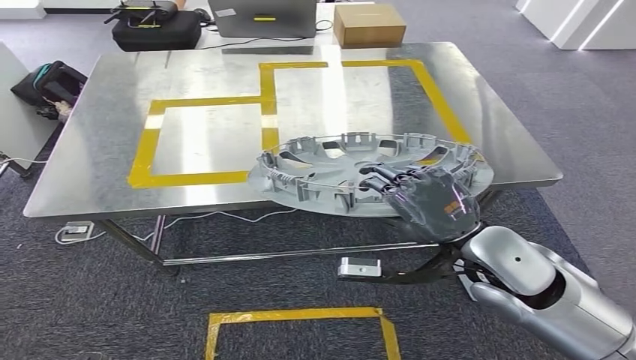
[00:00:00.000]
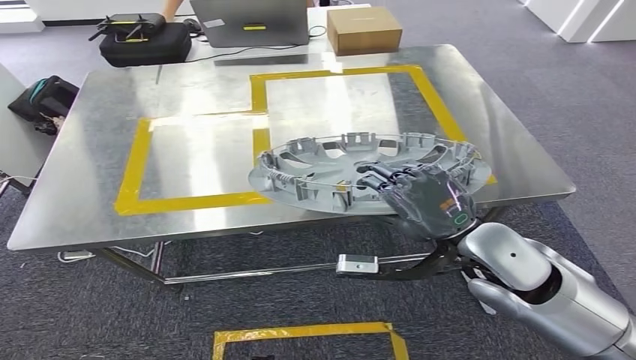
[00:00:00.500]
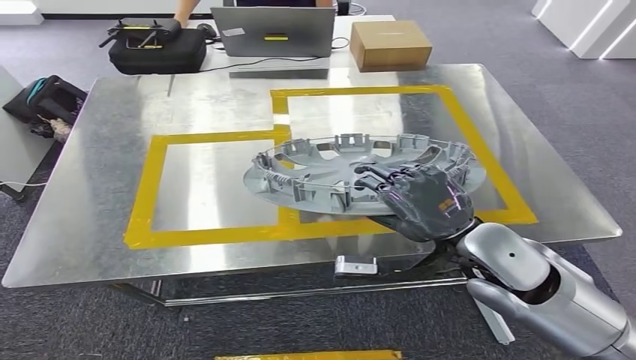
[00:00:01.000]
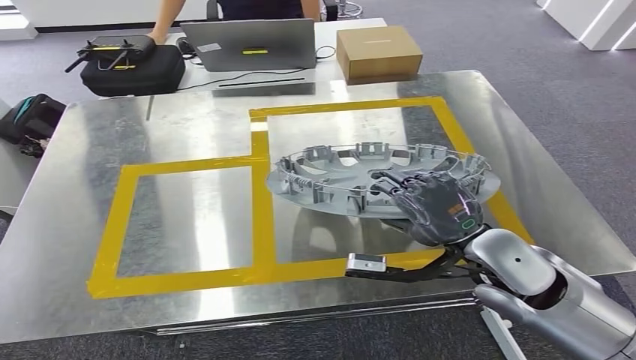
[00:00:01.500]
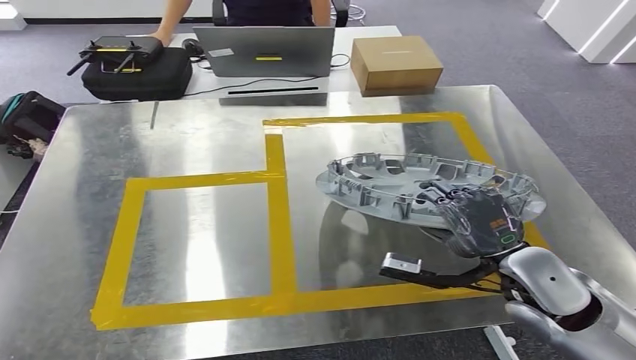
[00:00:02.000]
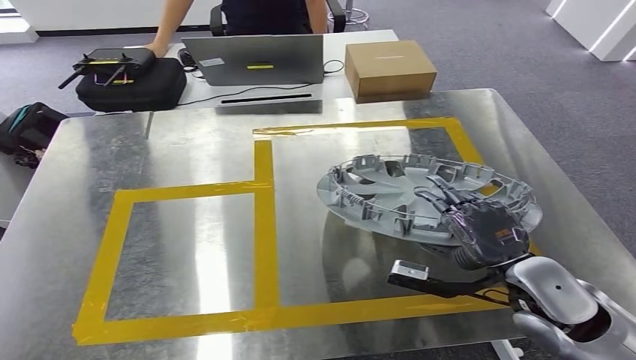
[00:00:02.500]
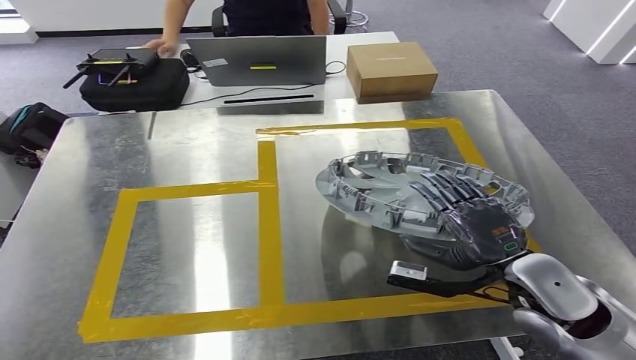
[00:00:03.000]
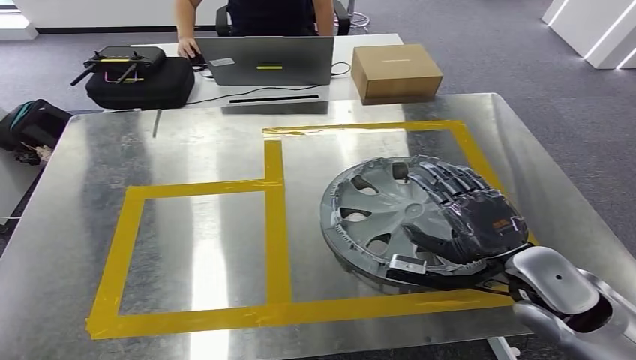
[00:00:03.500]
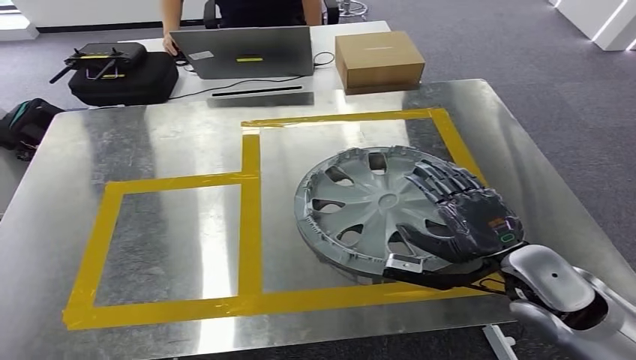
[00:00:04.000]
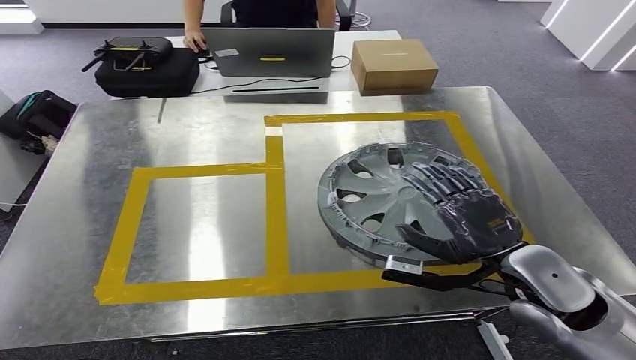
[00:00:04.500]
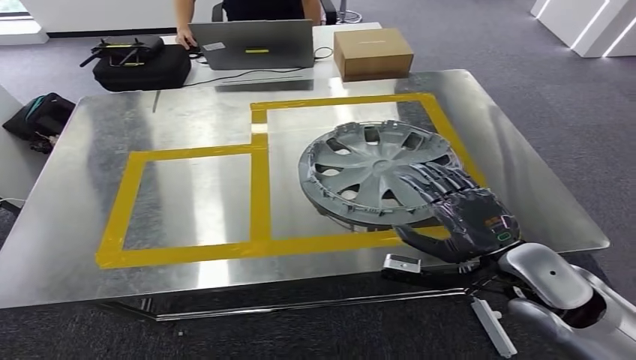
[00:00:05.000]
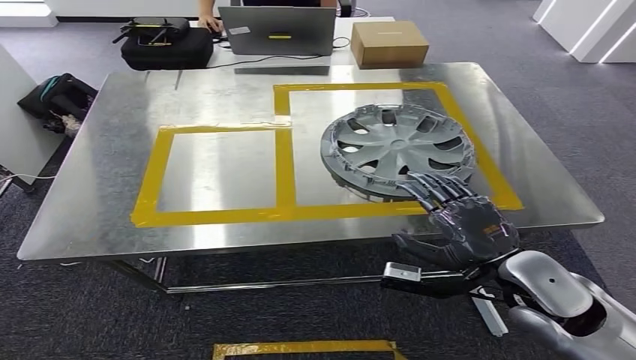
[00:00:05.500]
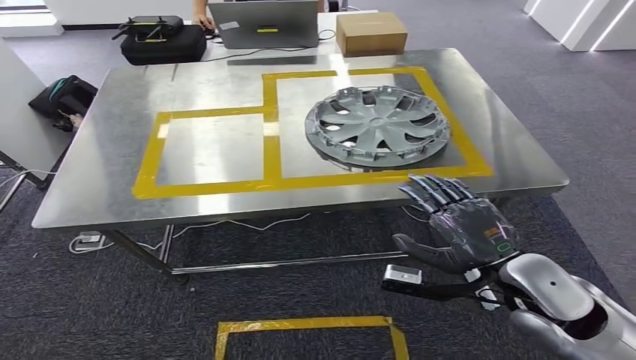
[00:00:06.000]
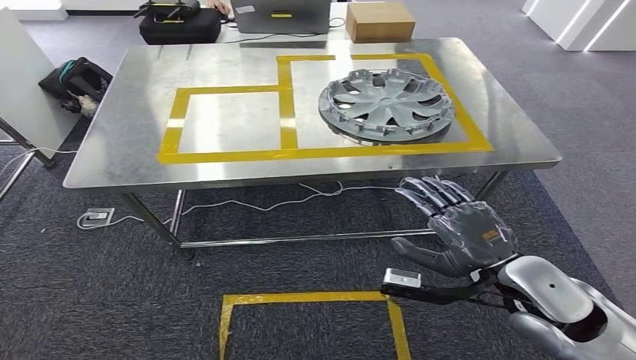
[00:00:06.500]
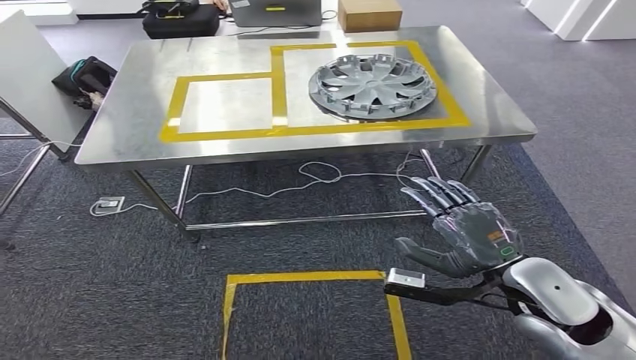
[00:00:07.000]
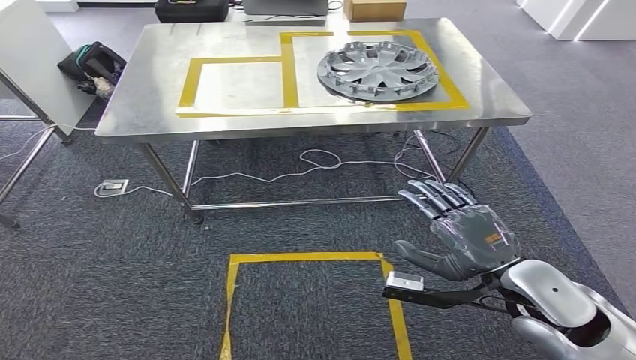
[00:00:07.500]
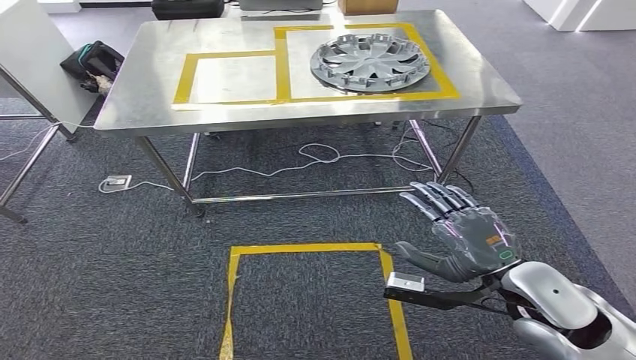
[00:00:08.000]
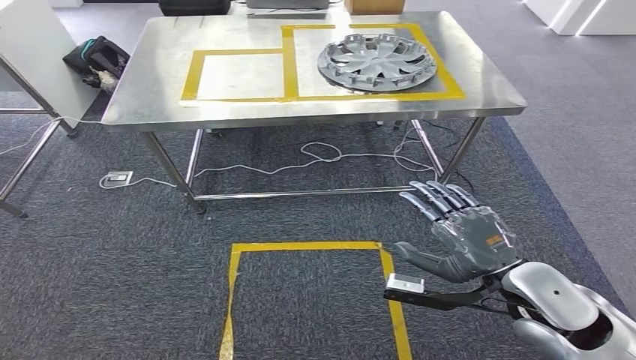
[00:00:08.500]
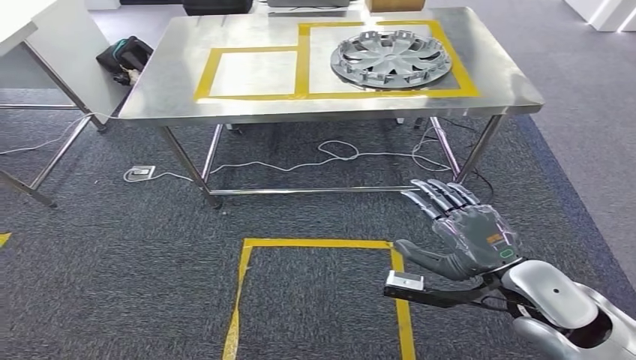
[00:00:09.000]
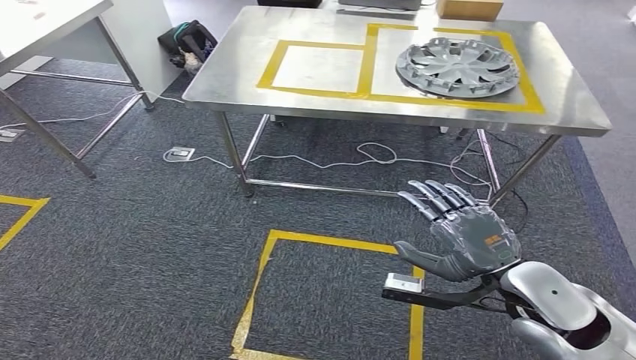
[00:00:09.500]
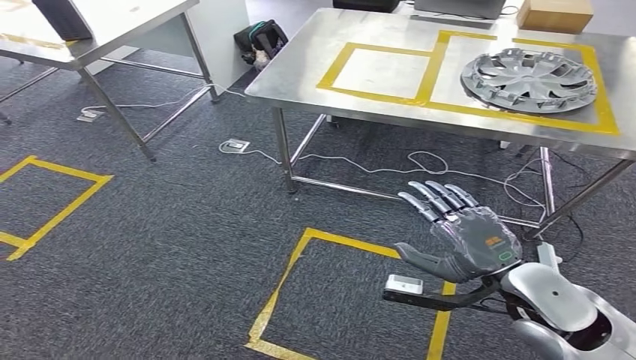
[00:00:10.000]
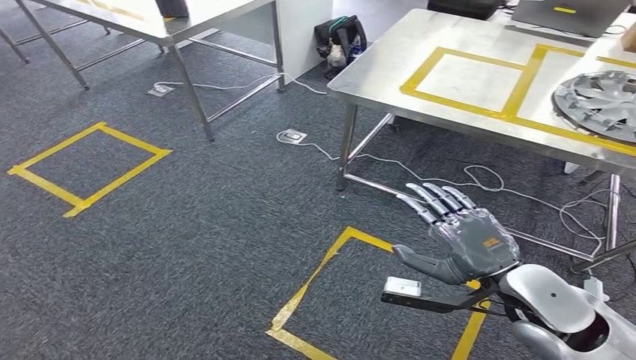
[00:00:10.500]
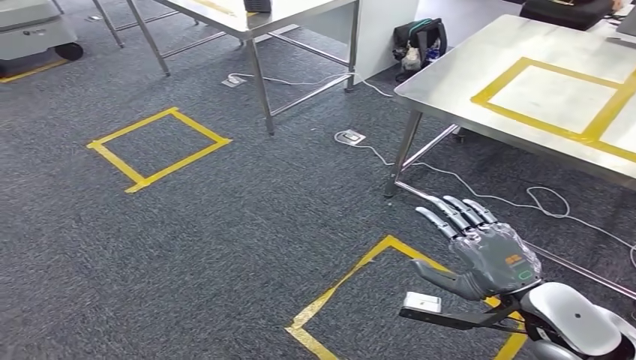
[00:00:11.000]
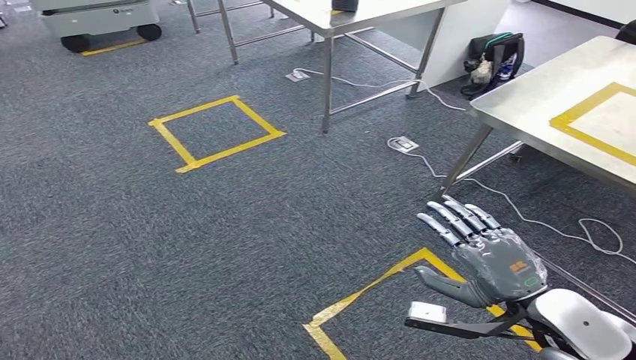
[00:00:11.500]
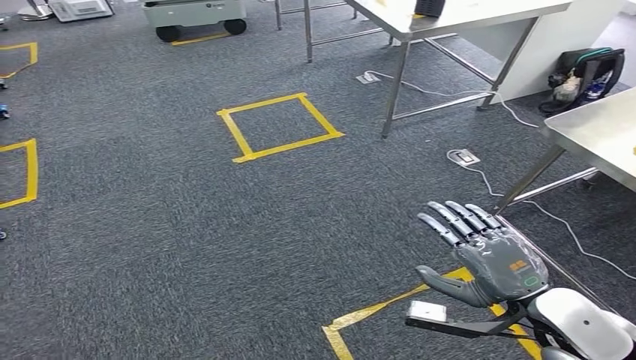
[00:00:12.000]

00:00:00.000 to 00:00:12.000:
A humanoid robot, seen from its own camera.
Step, 00:00:00.000 to 00:00:02.000: Move the small component to the workbench.
Step, 00:00:02.500 to 00:00:05.000: Insert the small component into the corresponding slot on the workbench.

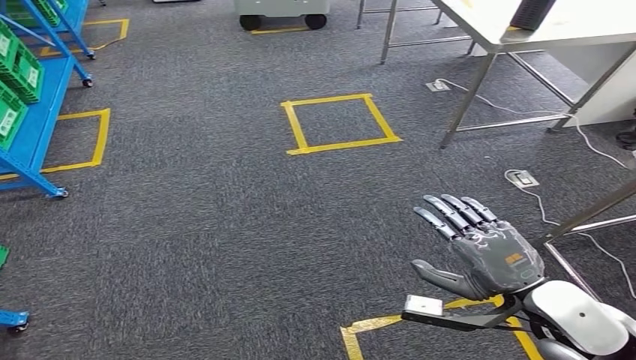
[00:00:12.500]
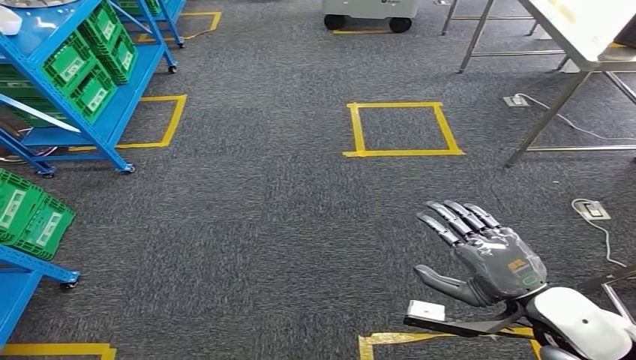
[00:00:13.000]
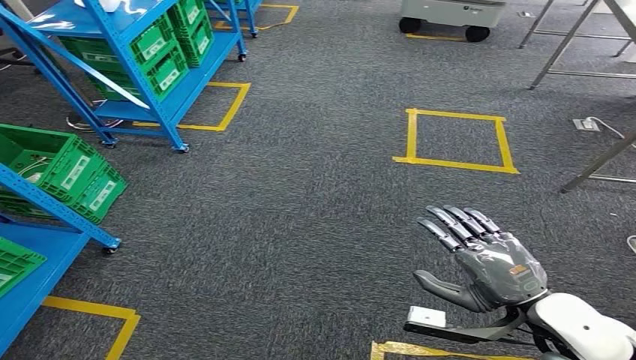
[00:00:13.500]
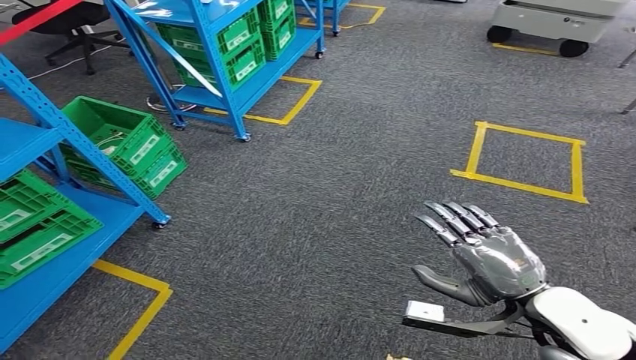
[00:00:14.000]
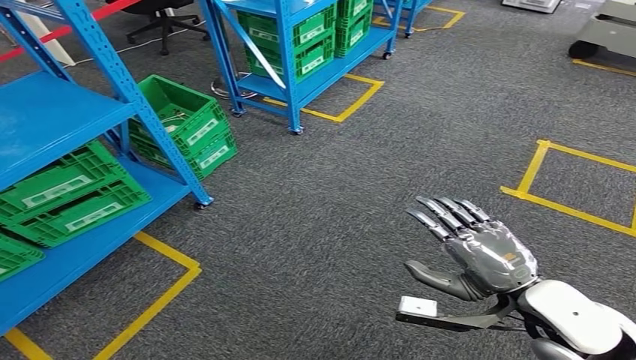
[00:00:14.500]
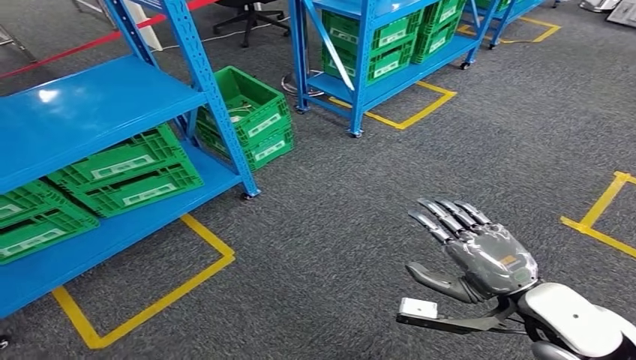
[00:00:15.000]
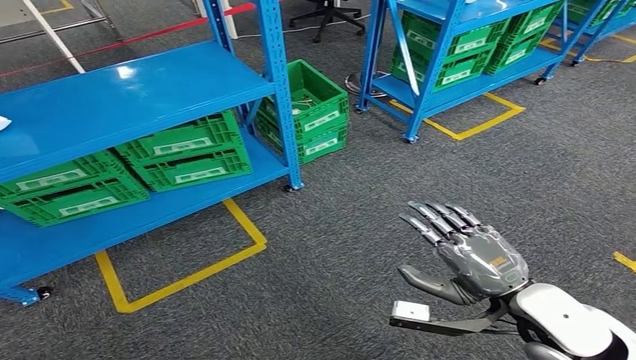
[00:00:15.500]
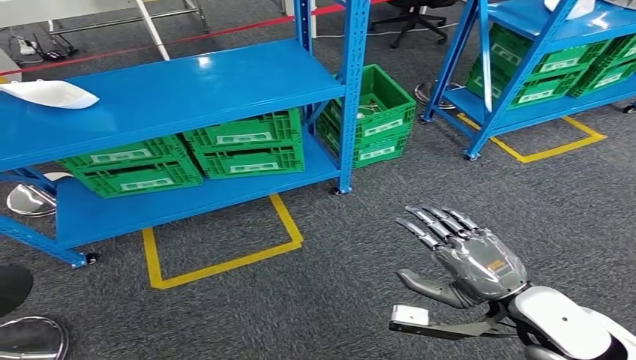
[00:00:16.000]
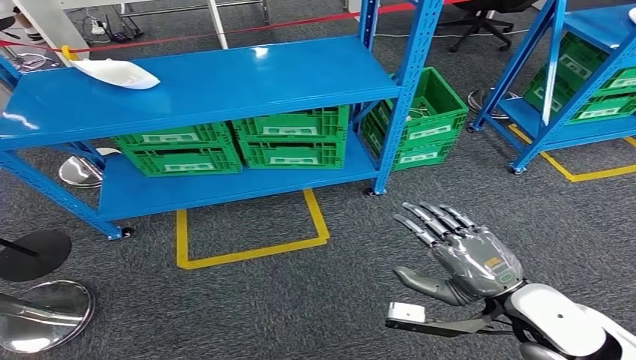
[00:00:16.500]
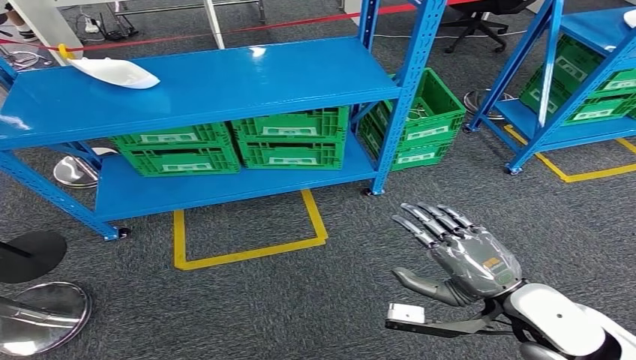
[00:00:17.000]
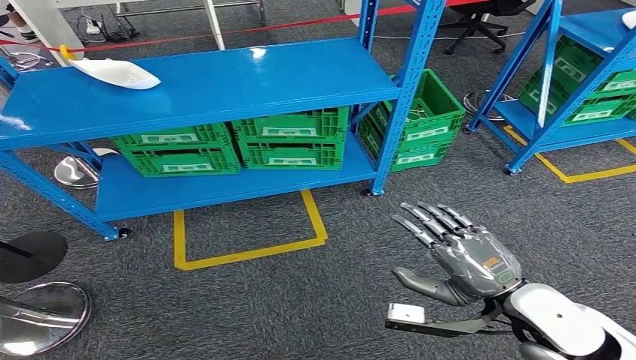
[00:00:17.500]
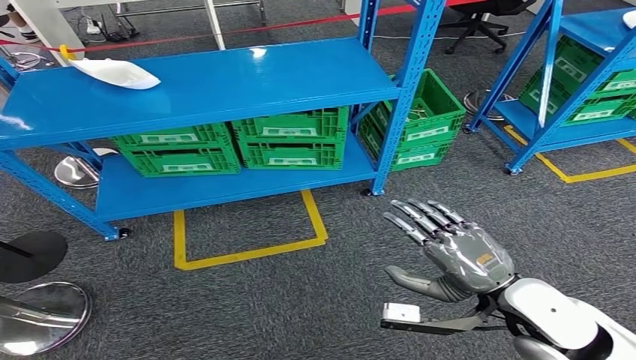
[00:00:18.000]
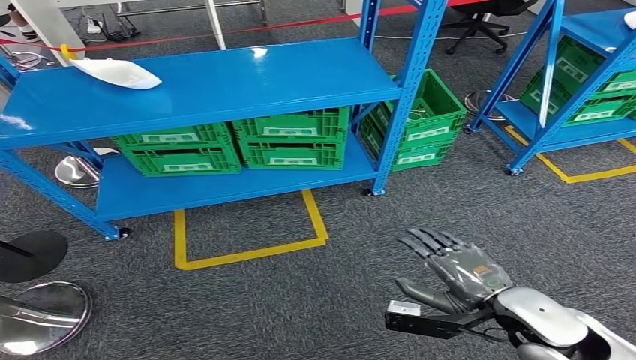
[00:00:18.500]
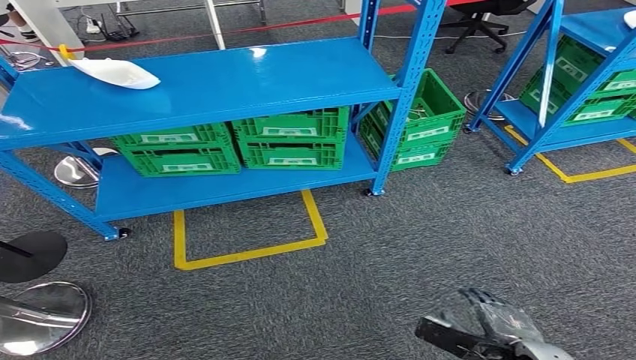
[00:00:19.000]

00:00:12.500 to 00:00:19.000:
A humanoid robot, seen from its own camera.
Step, 00:00:12.500 to 00:00:19.000: Move to the initial position at the workbench.
00:00:17.000 to 00:00:19.000: The right hand moves downward and backward, about 15 cm.
